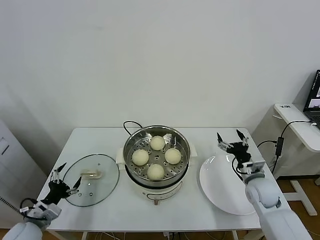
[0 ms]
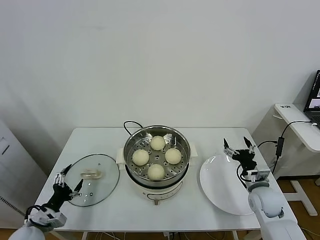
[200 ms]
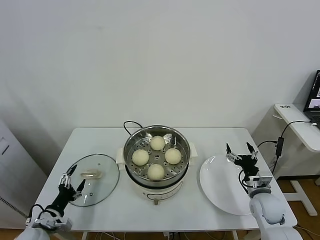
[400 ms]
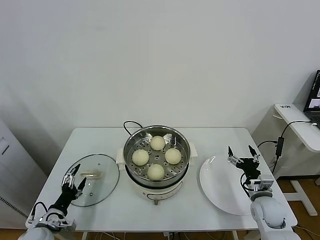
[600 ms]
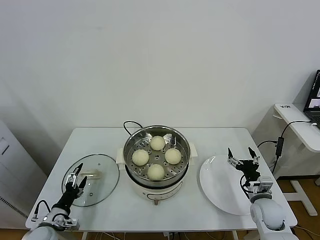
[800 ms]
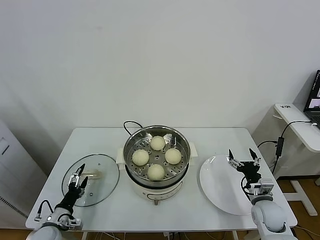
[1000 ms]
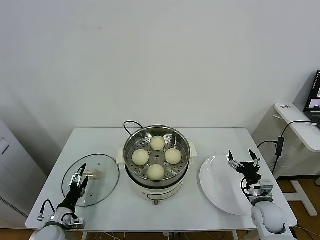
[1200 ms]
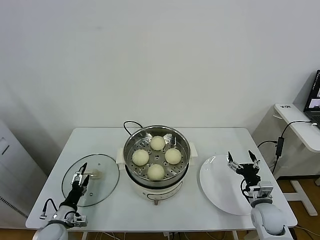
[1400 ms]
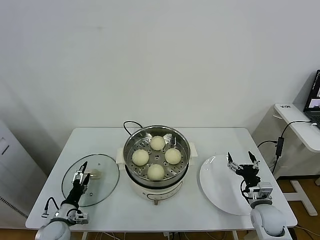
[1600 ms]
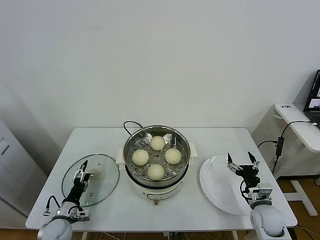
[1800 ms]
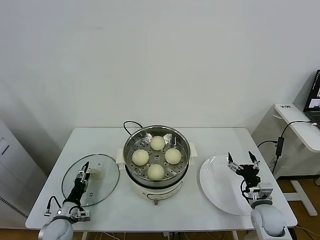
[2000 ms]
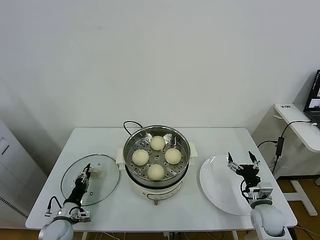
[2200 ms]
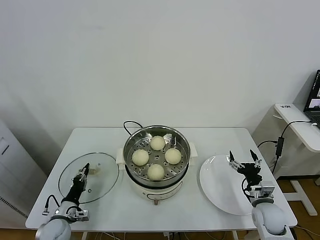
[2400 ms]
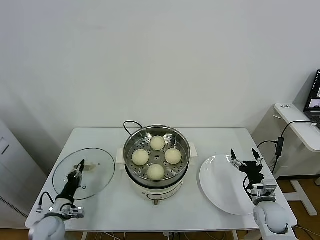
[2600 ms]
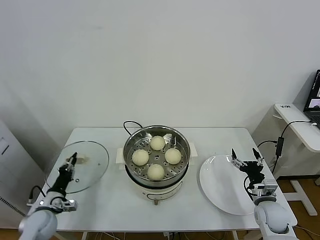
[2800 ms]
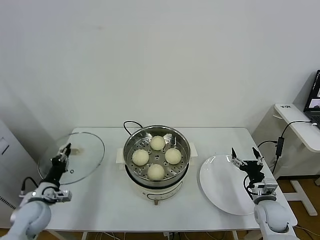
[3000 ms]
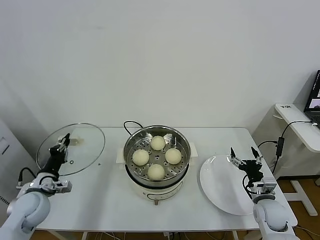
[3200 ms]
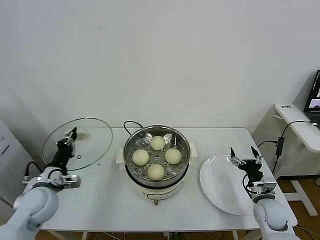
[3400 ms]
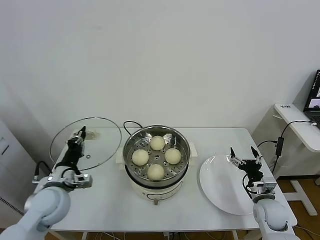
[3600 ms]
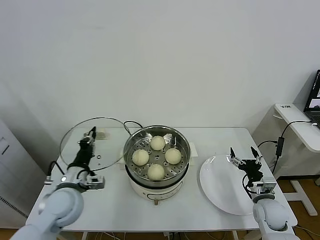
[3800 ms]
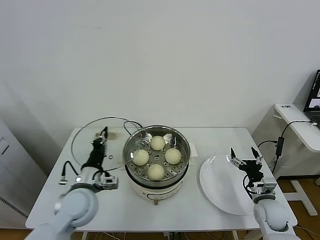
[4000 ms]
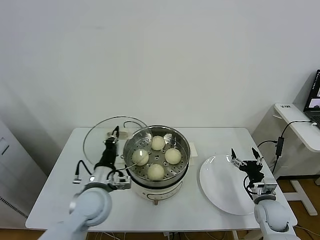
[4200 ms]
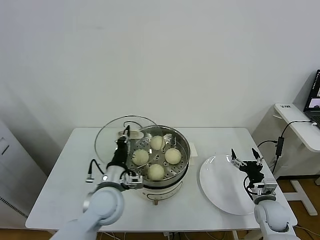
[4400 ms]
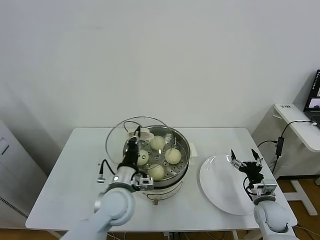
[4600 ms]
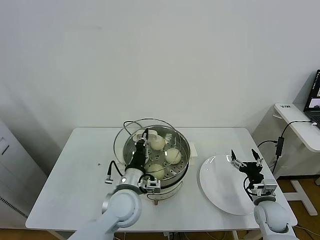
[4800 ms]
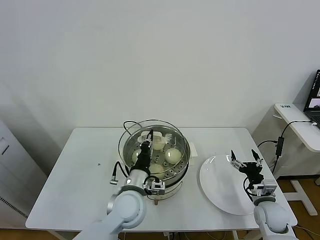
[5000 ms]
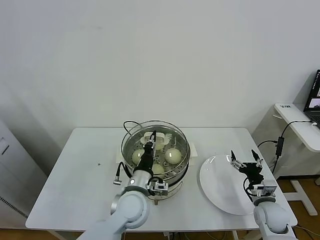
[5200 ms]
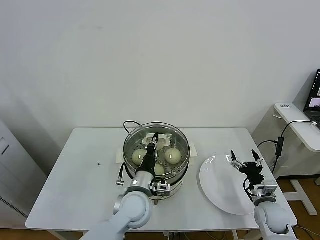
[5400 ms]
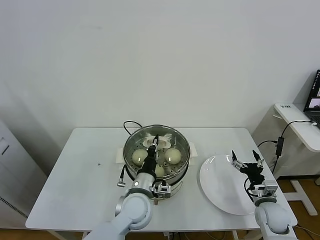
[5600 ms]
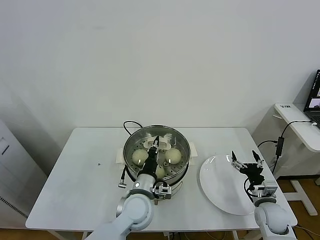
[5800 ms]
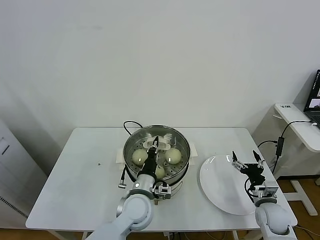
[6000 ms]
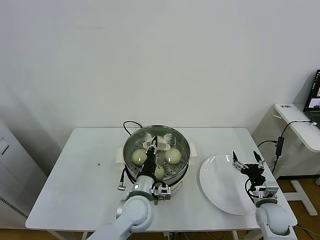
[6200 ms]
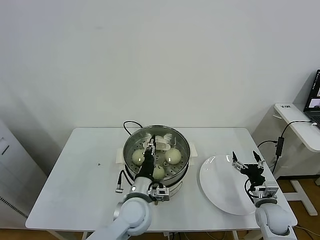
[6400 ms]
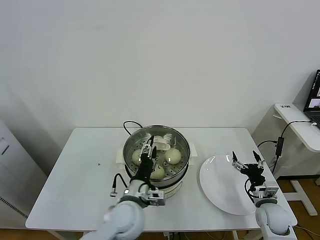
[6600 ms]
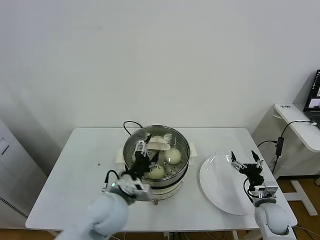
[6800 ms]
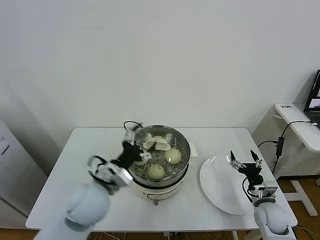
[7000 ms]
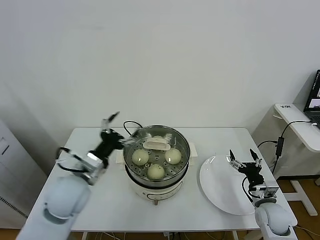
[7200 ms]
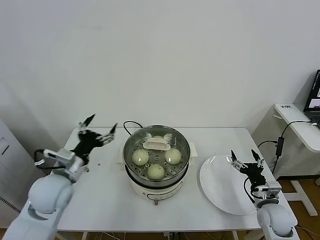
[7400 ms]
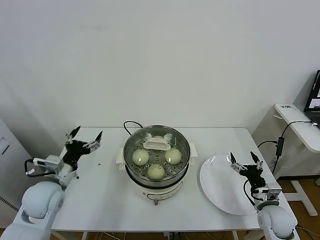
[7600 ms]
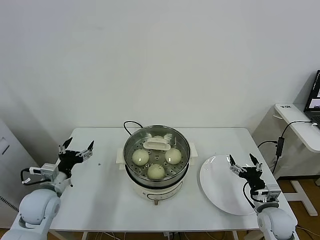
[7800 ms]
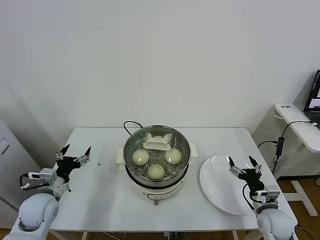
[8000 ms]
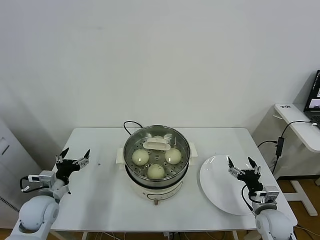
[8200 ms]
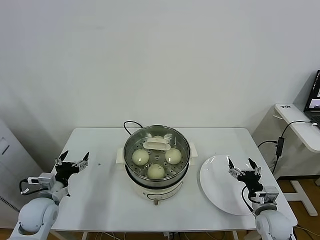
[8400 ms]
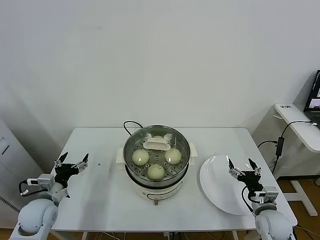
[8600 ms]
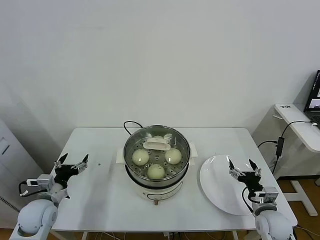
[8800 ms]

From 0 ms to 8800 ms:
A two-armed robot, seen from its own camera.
Task of the whole recording: take steamed baozi put them in steamer.
Step, from 0 ms to 2800 ms: Grasp the pot lid with left gripper.
Step, from 3000 ms to 6800 ms: Place the pot lid on the steamer with left gripper.
From 0 ms to 1400 ms: The left gripper moves downward, approximately 10 cm, while the right gripper moves backward and downward, some 10 cm.
From 1400 ms to 3000 ms: The left gripper travels upward by approximately 10 cm, and closes its fingers.
From 3000 ms to 4400 ms: The left gripper moves to the right and upward, some 25 cm.
From 4400 ms to 5800 ms: The left gripper shifts approximately 10 cm to the right.
From 5800 ms to 7400 ms: The left gripper heads to the left and upward, covering roughly 25 cm, and opens.
From 7400 ms to 8800 ms: The left gripper travels downward and to the left by roughly 15 cm.
